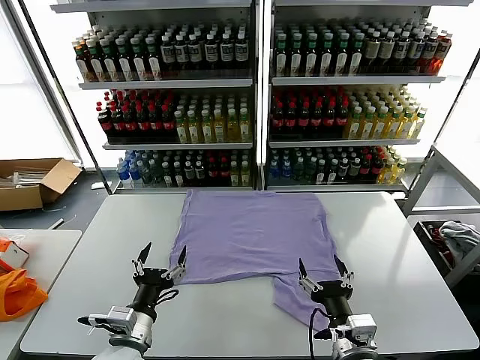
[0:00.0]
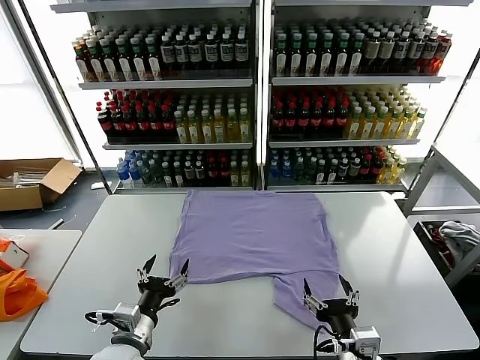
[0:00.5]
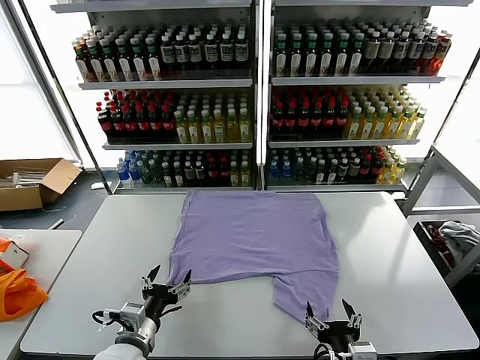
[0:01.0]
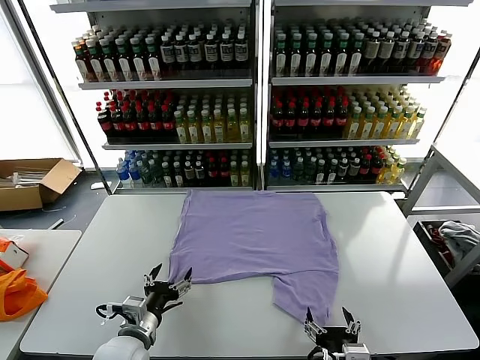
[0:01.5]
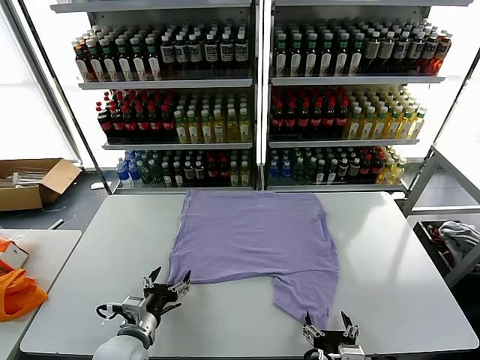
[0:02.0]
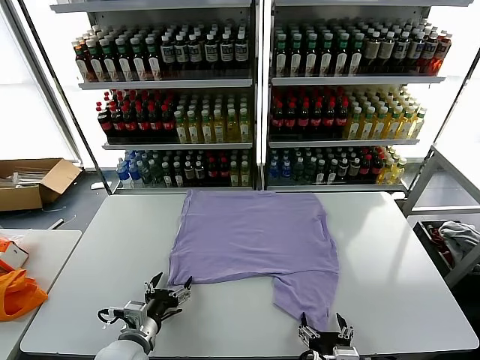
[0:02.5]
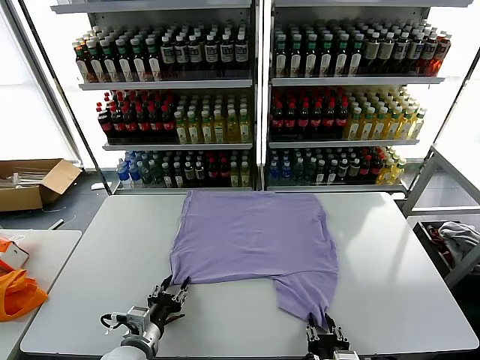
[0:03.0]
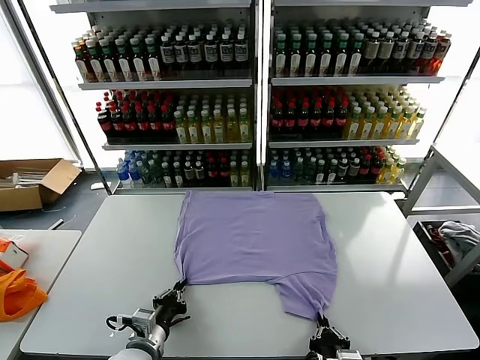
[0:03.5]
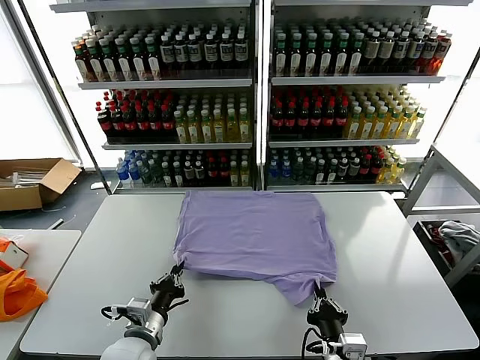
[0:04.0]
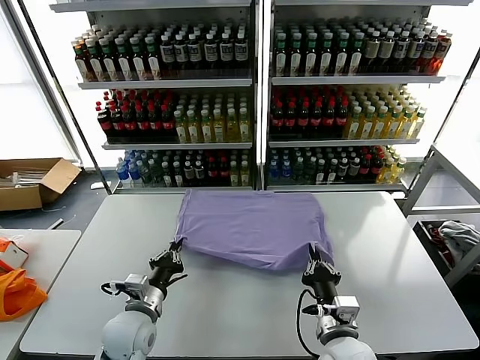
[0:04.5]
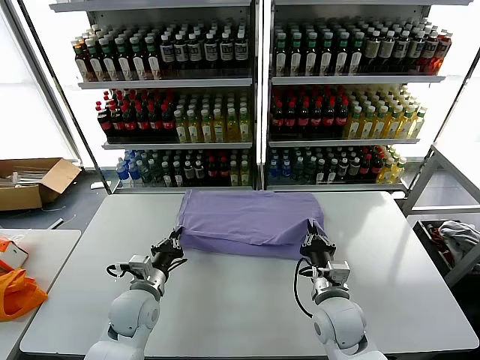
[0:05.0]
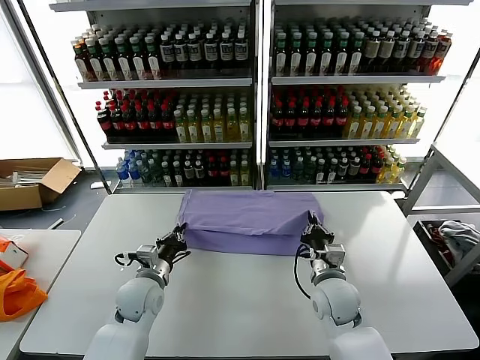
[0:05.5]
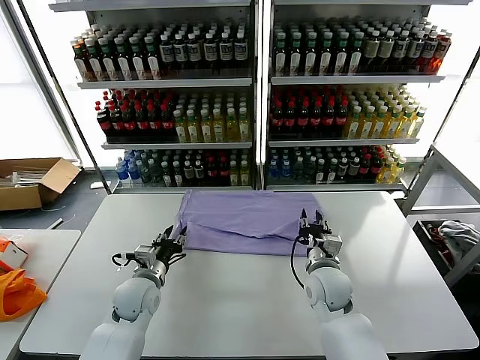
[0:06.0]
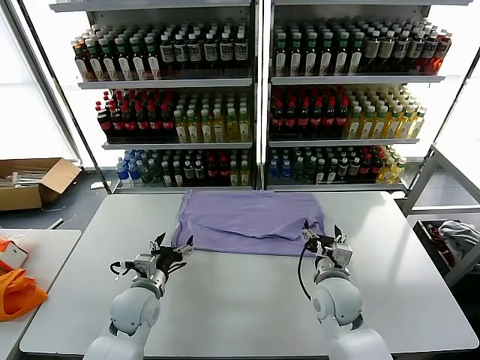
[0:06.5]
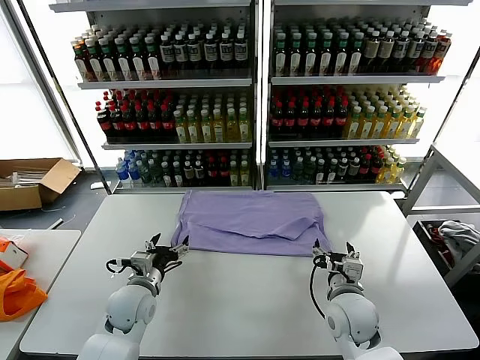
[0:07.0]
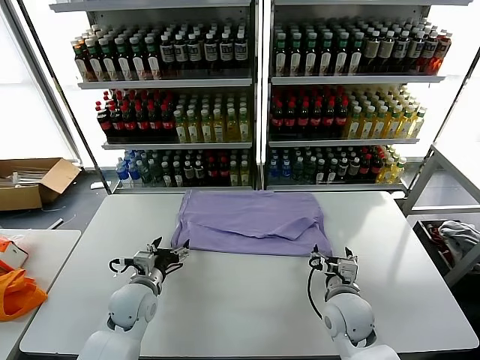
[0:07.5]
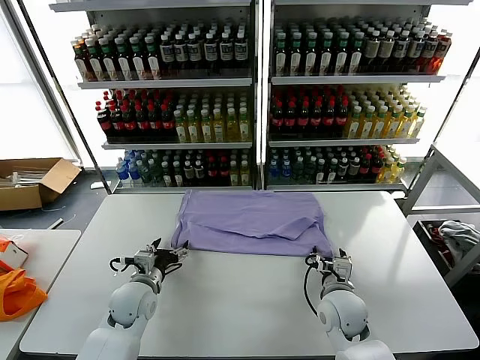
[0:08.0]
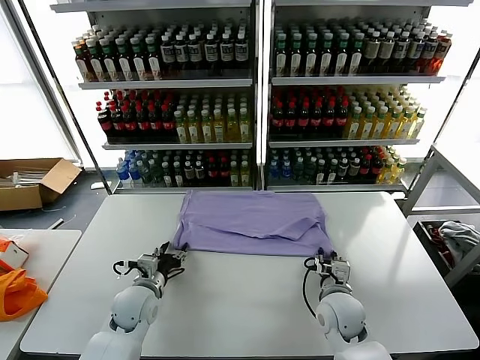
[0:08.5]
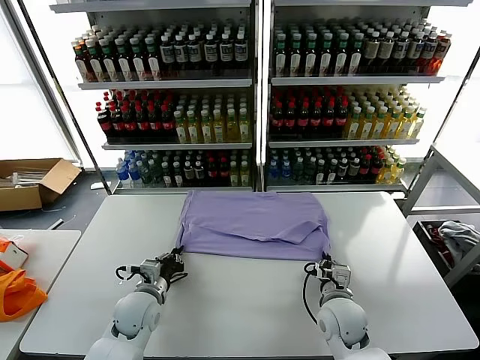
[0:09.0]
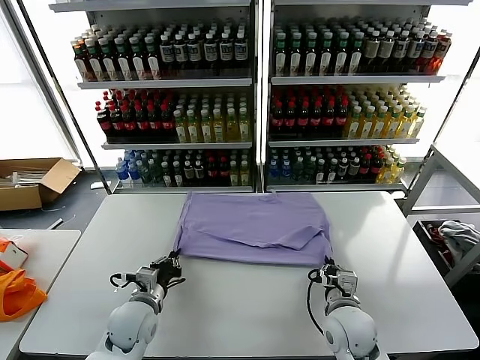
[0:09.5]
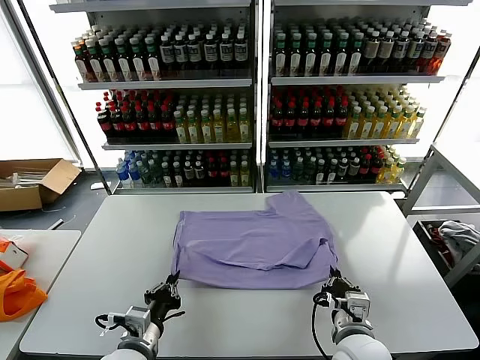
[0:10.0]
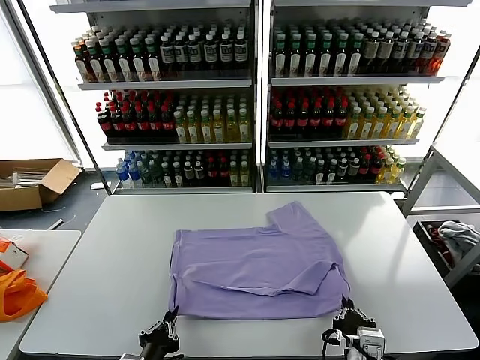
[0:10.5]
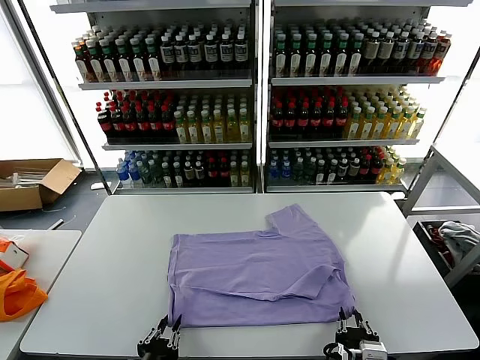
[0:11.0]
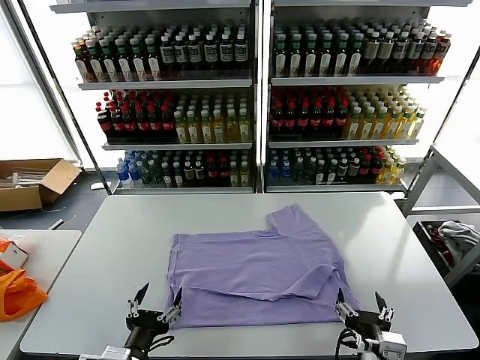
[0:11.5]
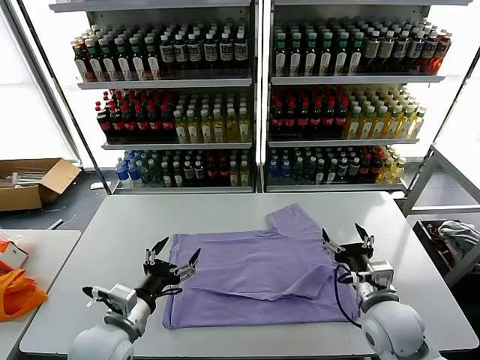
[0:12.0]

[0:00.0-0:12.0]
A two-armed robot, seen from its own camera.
Task of the whole recording: fold and organize the clothes.
Step, 0.0 to 3.5 s: use both grippers simultaneously to clamp the lower edge of the clothing fabric.
Step, 4.0 to 6.0 s: use both grippers to drag the lower edge of the fabric forward and fold it over the upper edge.
Step, 6.5 to 11.0 s: Drag the clothes downward with both gripper.
2.0 to 4.0 s: The right gripper closes, while the left gripper closes.
4.0 to 6.0 s: The right gripper goes some 20 cm forward, and opens, while the left gripper goes about 15 cm forward, and opens.
6.0 to 8.0 s: The left gripper opens. Meanwhile the right gripper changes place by approximately 5 cm.
8.0 to 10.0 s: Both grippers travel together backward, approximately 15 cm. The left gripper closes; the right gripper closes.
10.0 to 12.0 s: The right gripper goes some 10 cm forward and to the right, and opens its fingers. The left gripper moves upward, approximately 5 cm, reaches roughly 10 cm backward, then returns, and opens up.

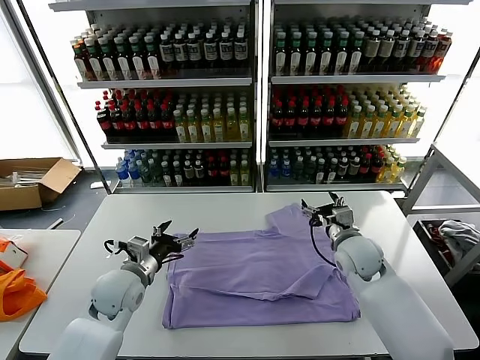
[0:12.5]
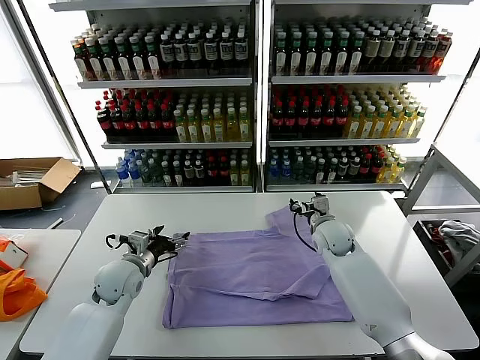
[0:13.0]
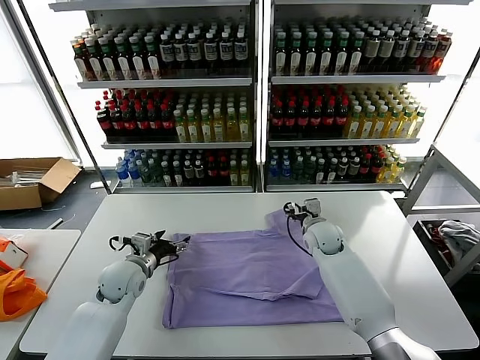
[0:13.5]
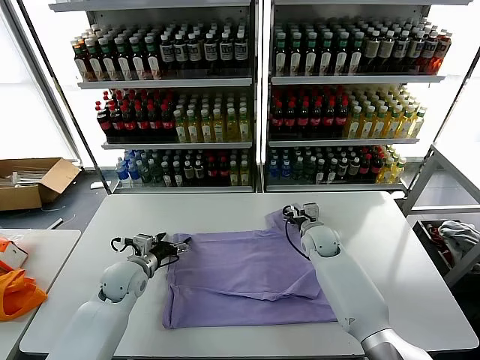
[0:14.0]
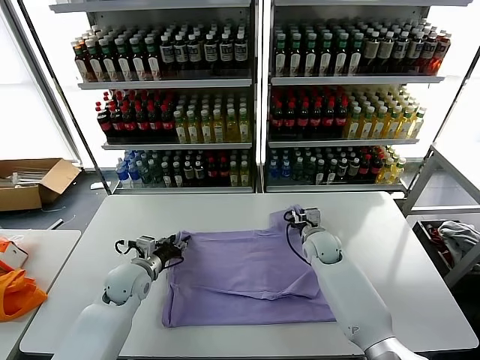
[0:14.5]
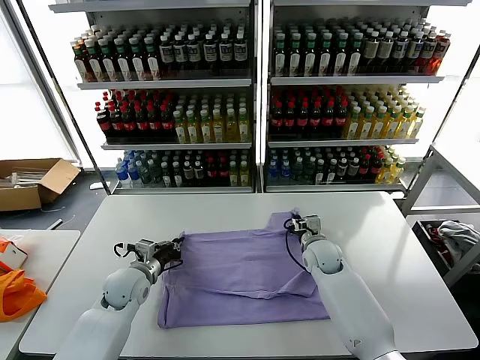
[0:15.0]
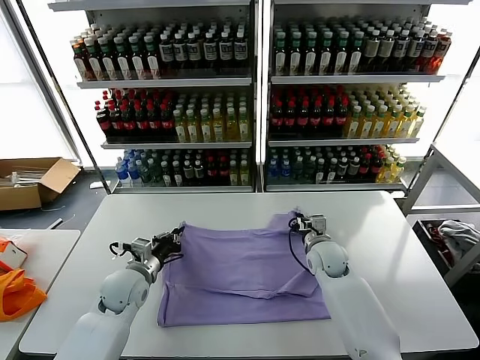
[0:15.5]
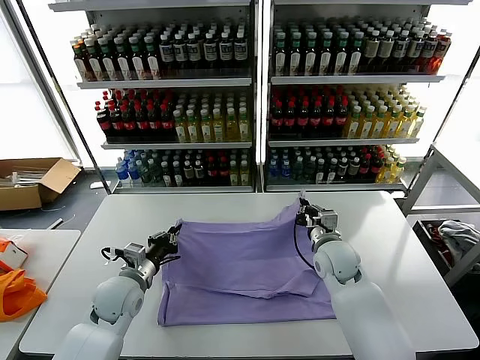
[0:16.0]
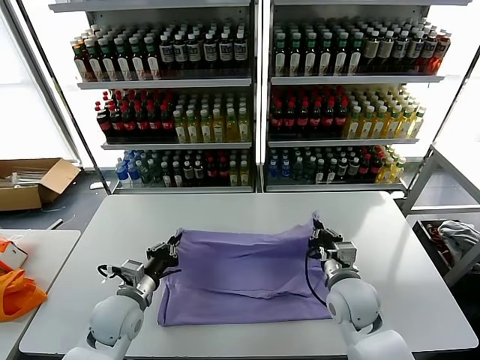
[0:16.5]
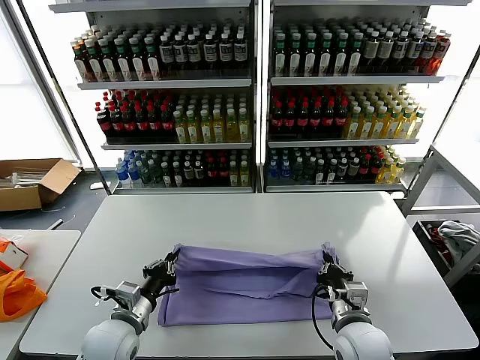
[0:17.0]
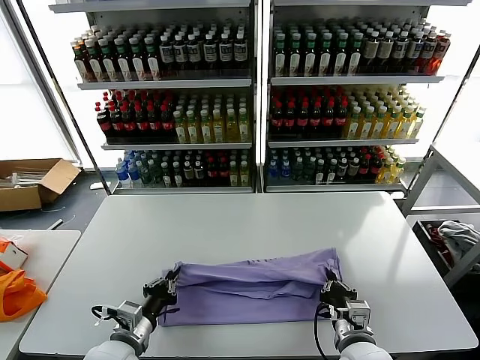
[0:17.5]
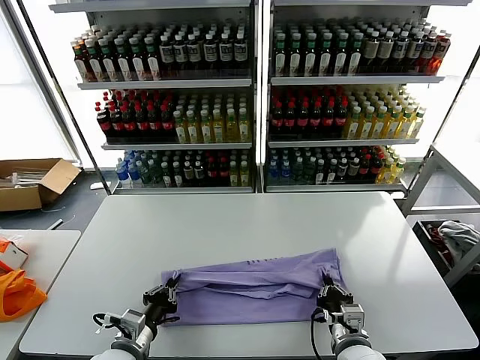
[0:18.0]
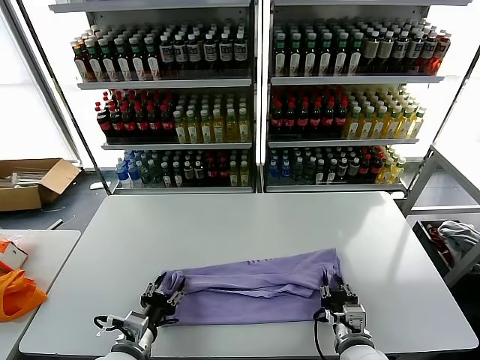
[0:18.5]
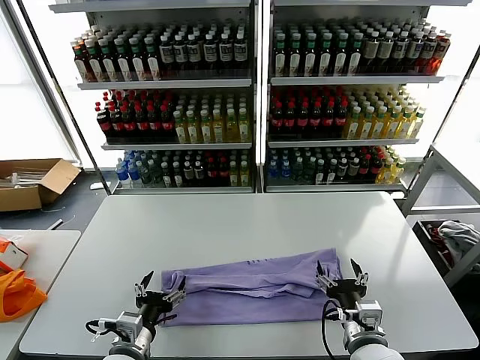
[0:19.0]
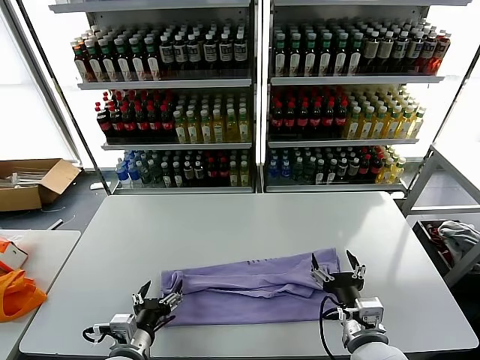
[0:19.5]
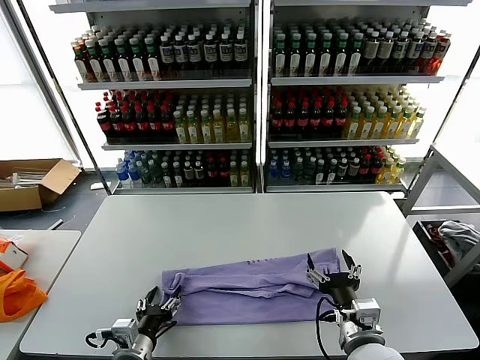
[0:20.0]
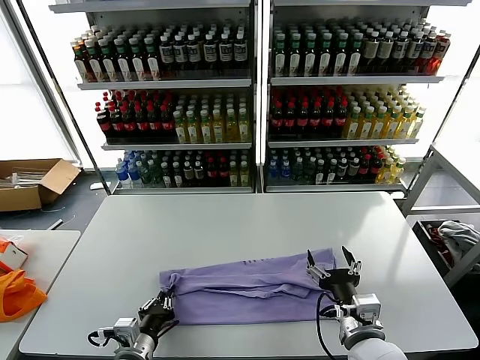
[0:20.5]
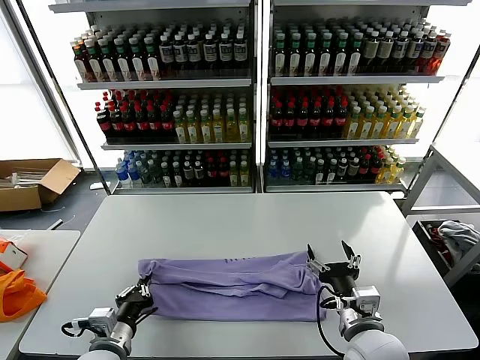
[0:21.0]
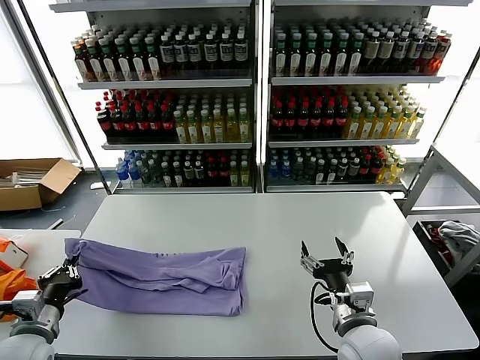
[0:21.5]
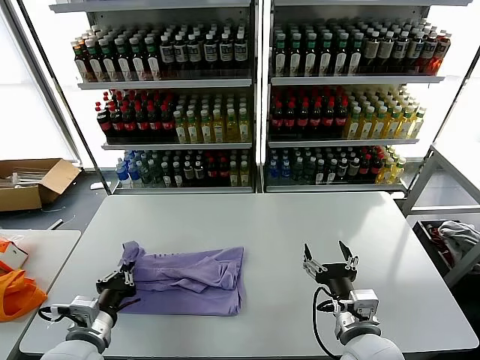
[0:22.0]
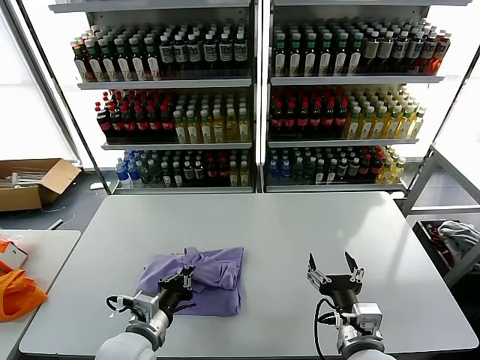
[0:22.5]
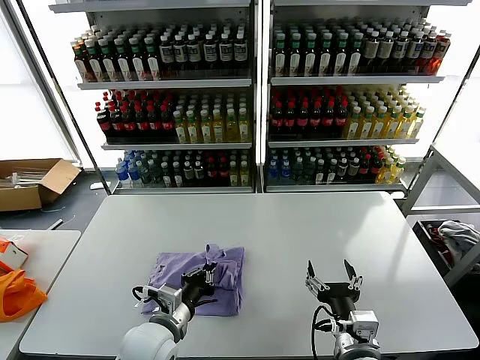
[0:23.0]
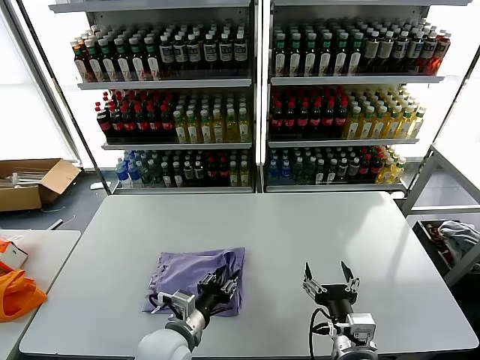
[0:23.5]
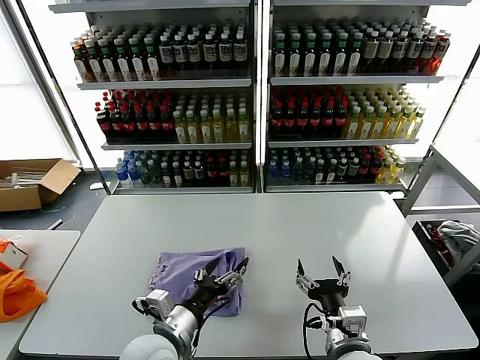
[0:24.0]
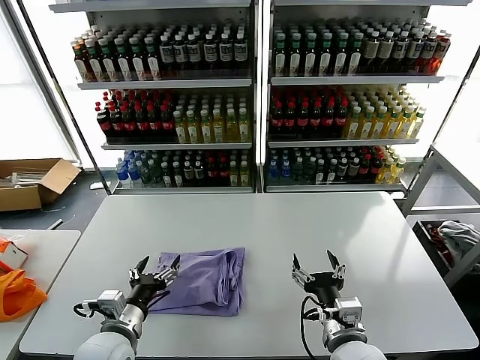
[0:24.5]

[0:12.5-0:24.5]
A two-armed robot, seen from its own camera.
Task of the whole recording: fold and organize the clothes.
Step, 12.5 to 15.0 s: use both grippers simultaneously to clamp the upper edge of the clothing fabric.
Step, 15.5 to 18.5 s: use both grippers to drag the upper edge of the fabric backward and fold it over the lower edge.
Step, 19.0 to 20.5 s: use the left gripper to clamp the left edge of the fabric.
Step, 21.0 to 23.5 s: use the left gripper to drag the left edge of the fabric to the left and folds it over the right edge.
12.5 to 14.5 s: The left gripper moves downward, roughly 5 cm, and closes its fingers, while the right gripper is displaced downward and forward by about 10 cm, and closes.
14.5 to 16.5 s: The left gripper heads backward, covering roughly 10 cm, and closes, while the right gripper moves backward, some 20 cm, and closes its fingers.
16.5 to 18.5 s: The right gripper heads backward and downward, covering some 10 cm, and opens, while the left gripper goes roughly 10 cm backward, and opens.
18.5 to 20.5 s: The left gripper closes up, while the right gripper heads upward, covering roughly 5 cm, and opens up.
20.5 to 22.5 s: The left gripper is displaced upward by roughly 5 cm, and travels to the left and back again, roughly 15 cm each way.
22.5 to 24.5 s: The left gripper opens its fingers.

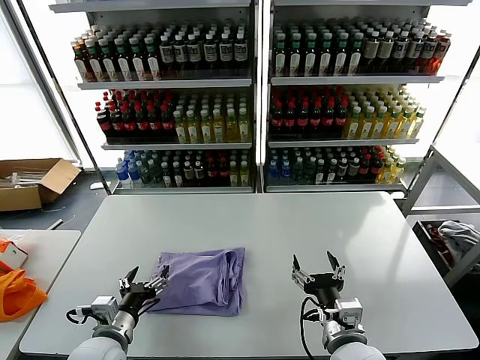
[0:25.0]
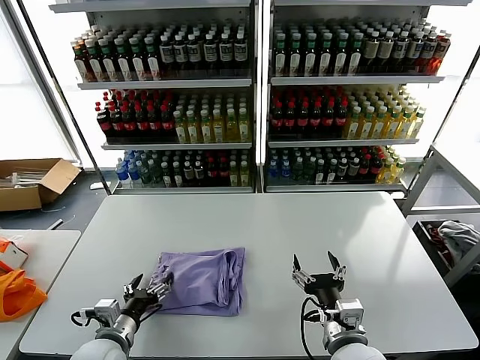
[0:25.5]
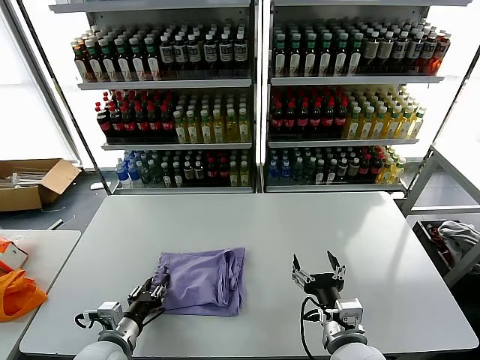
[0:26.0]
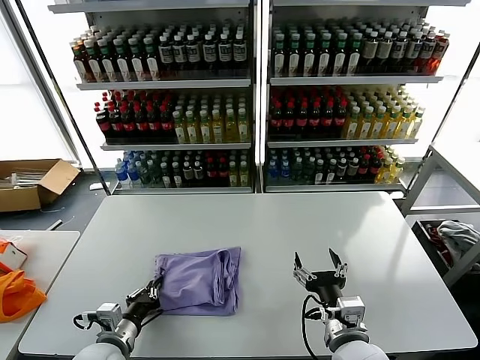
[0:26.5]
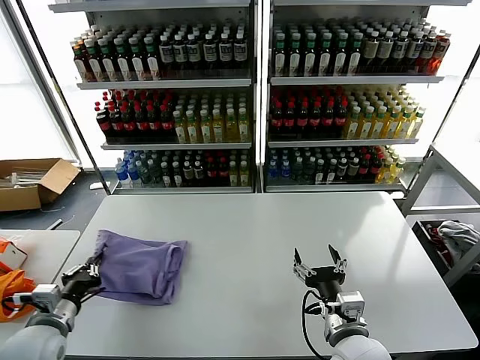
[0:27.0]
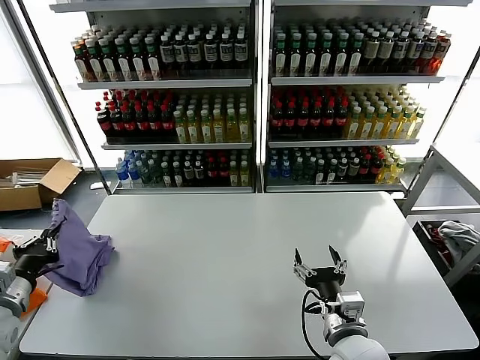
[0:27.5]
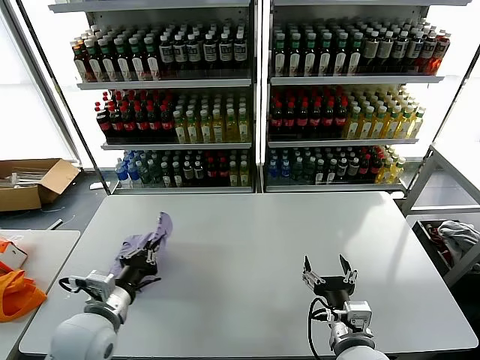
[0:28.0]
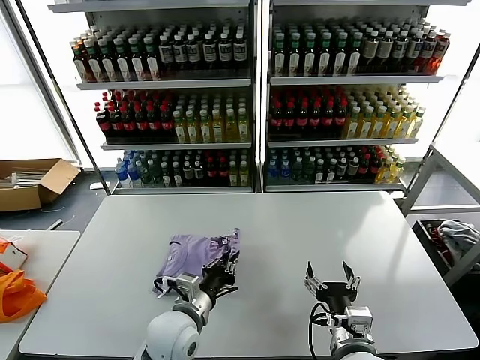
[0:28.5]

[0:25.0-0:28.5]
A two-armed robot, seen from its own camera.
Task of the whole recording: fold and organize the clothes.
25.0 to 27.0 s: The left gripper is displaced to the left by roughly 10 cm, and closes up.
27.0 to 28.5 s: The left gripper travels to the right by roughly 25 cm.
